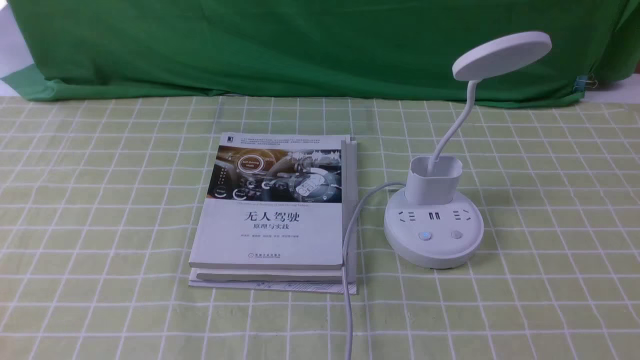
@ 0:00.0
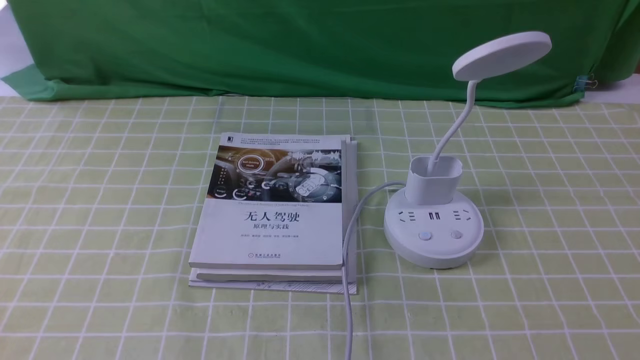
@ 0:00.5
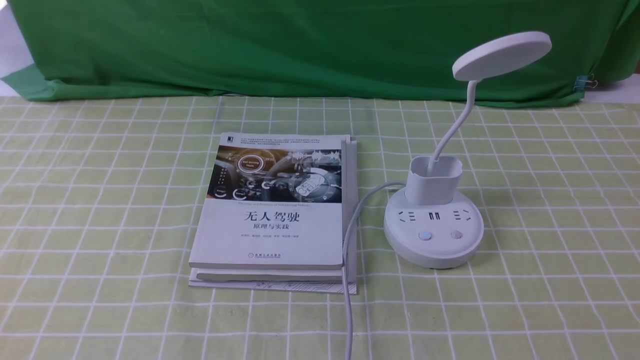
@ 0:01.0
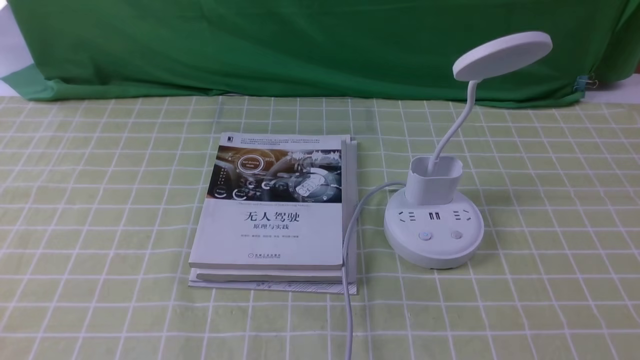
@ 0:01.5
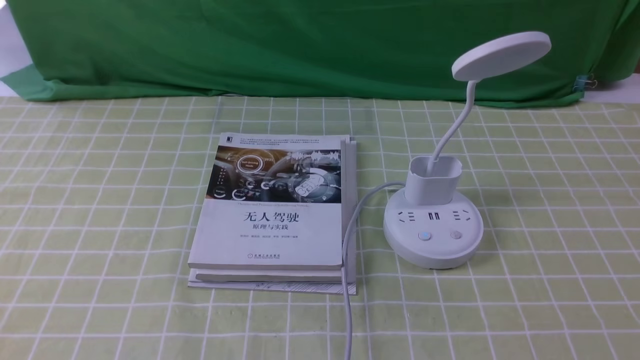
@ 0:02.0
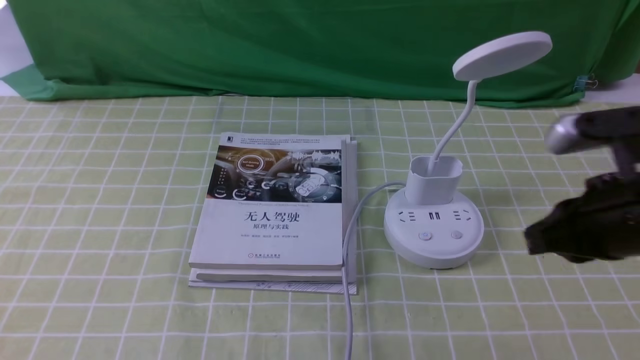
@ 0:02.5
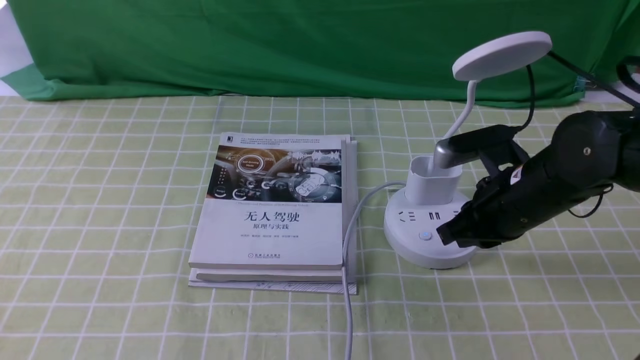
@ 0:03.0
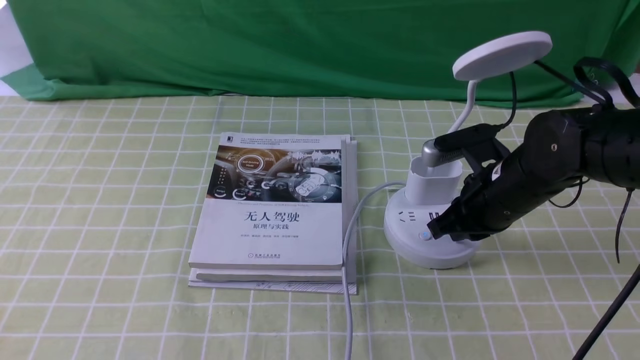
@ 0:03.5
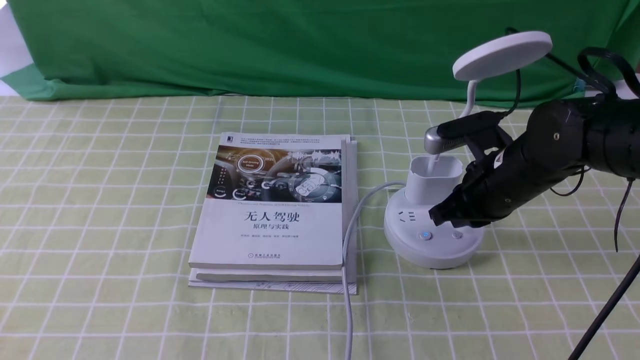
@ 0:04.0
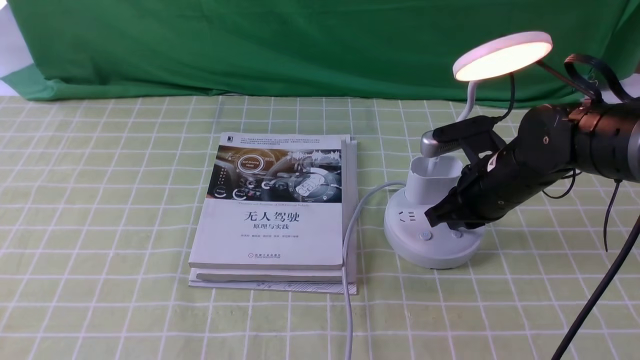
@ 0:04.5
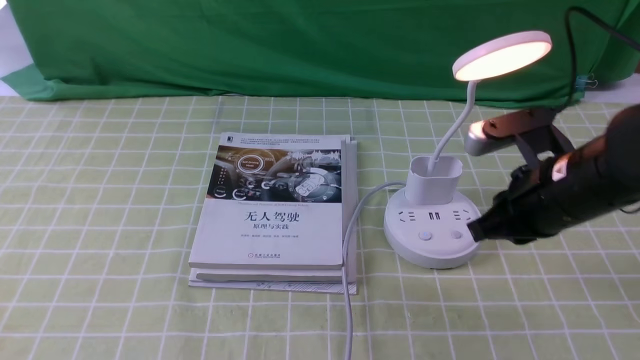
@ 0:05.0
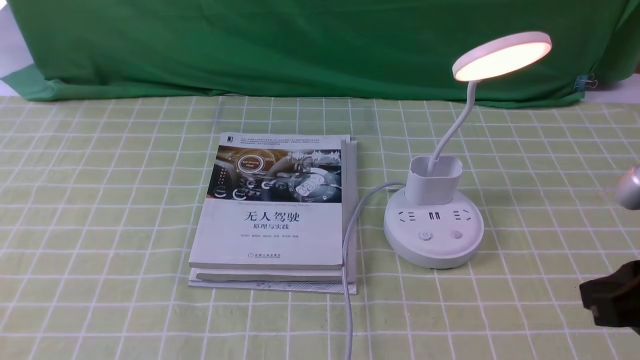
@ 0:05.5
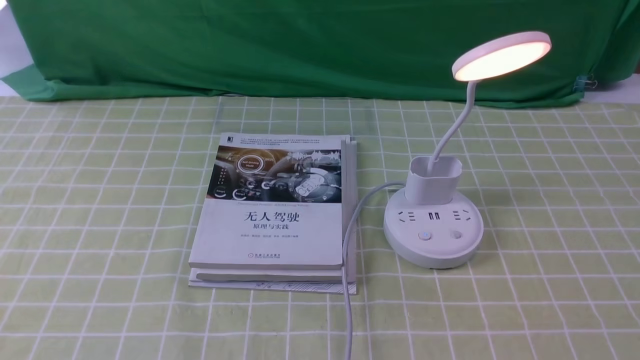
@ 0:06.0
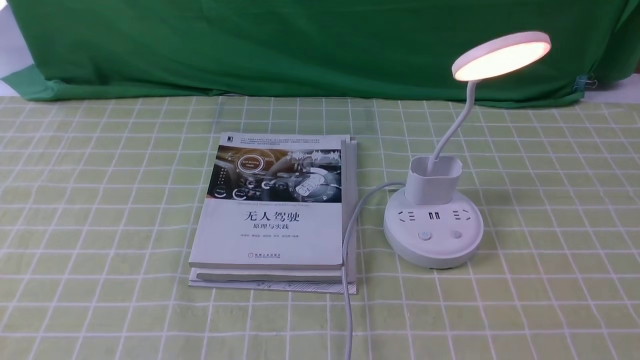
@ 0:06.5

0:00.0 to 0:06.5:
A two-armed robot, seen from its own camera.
Step, 0:00.0 to 0:04.5: use the right arm to press the button switch on the lamp holder.
0:02.0 to 0:04.5: The right gripper moves forward and to the left, roughly 30 cm, and closes.
0:04.5 to 0:06.5: The right gripper goes approximately 35 cm backward and to the right.

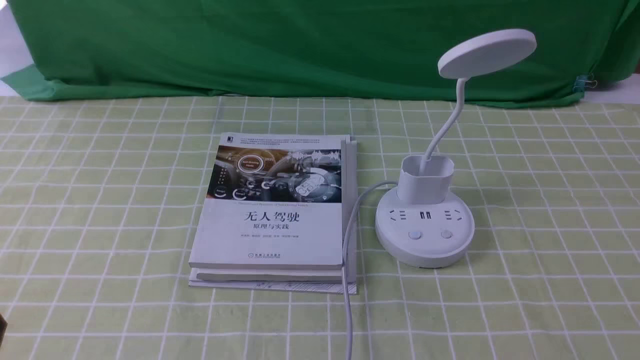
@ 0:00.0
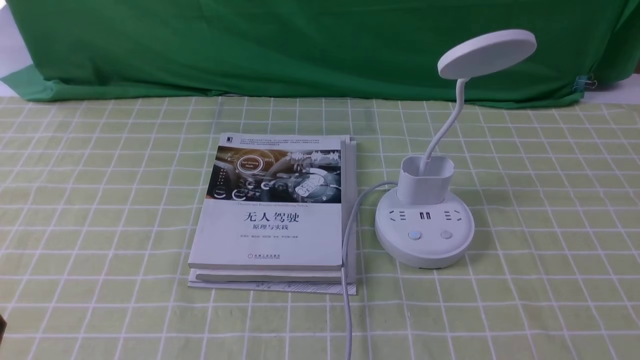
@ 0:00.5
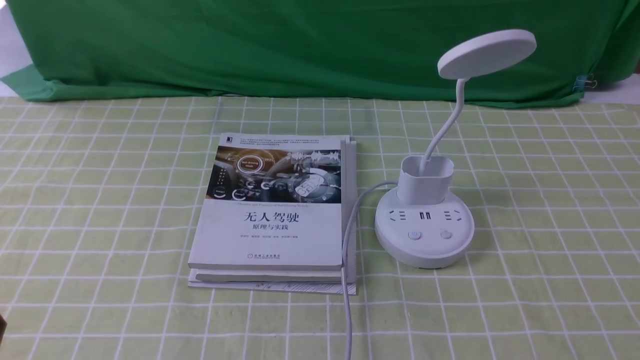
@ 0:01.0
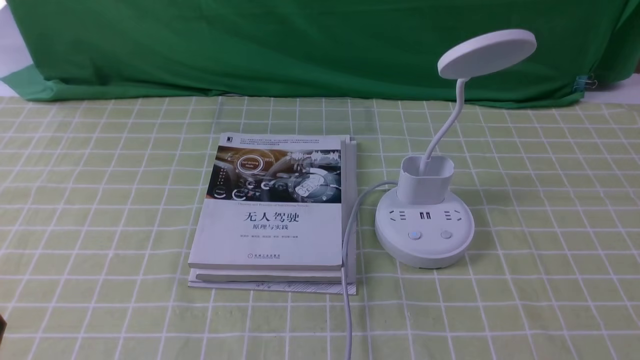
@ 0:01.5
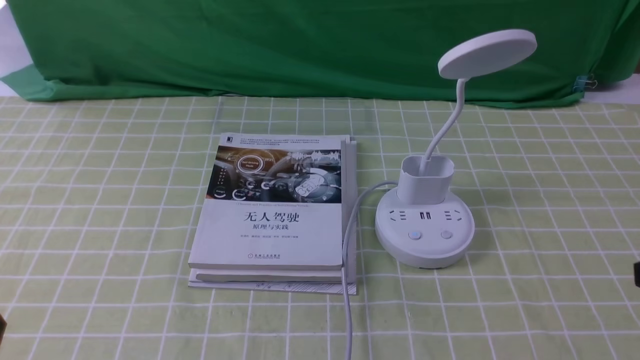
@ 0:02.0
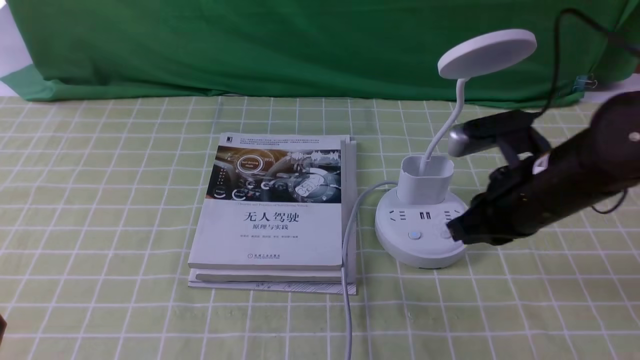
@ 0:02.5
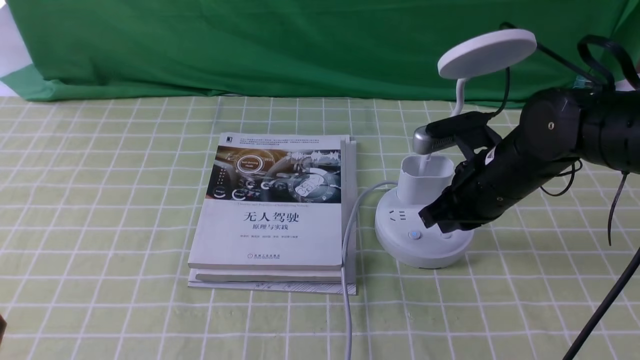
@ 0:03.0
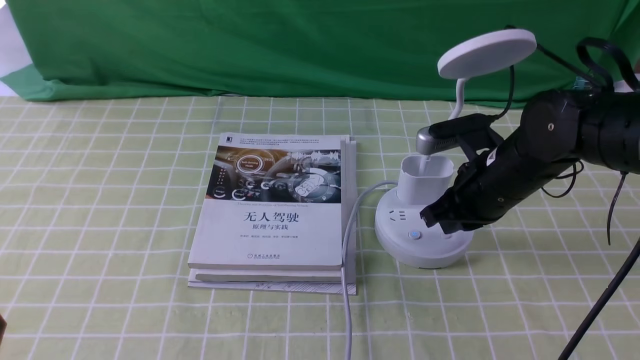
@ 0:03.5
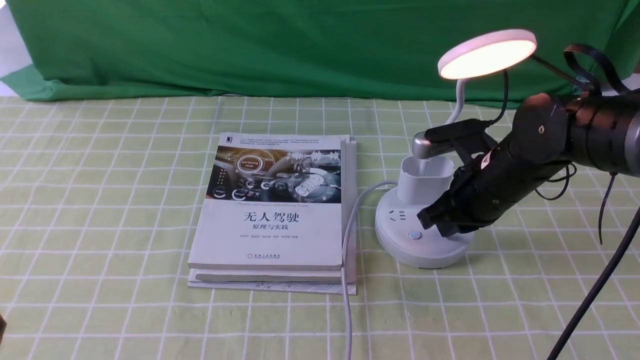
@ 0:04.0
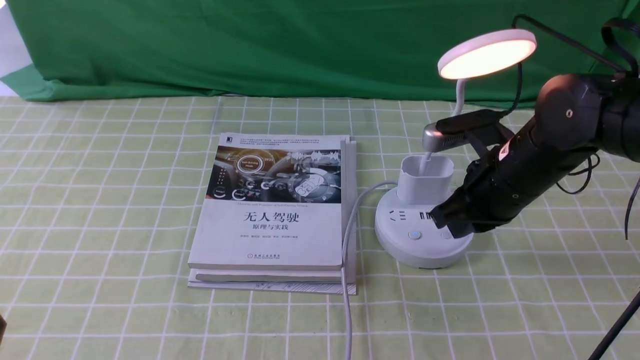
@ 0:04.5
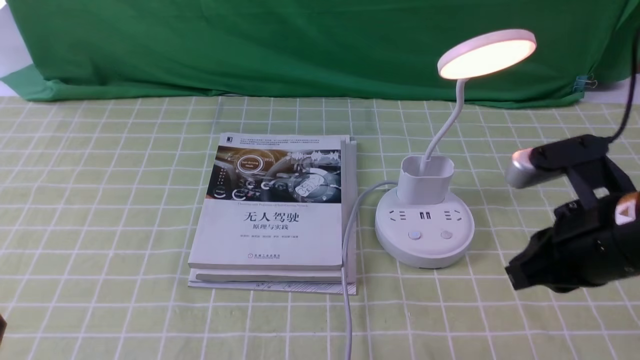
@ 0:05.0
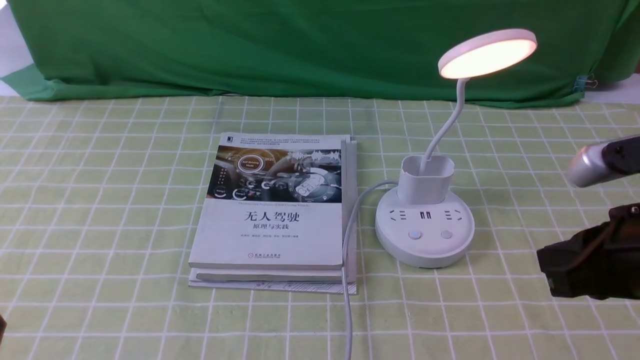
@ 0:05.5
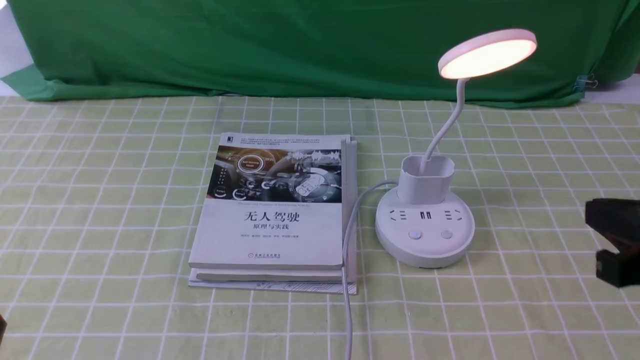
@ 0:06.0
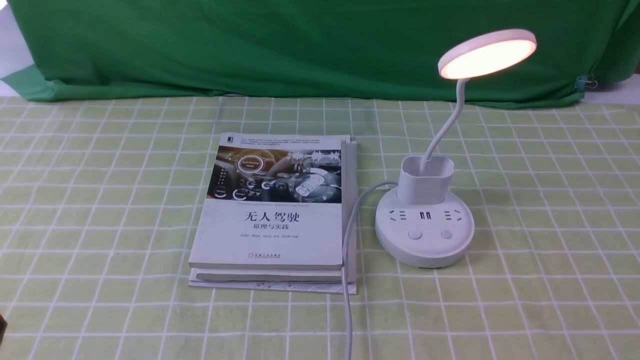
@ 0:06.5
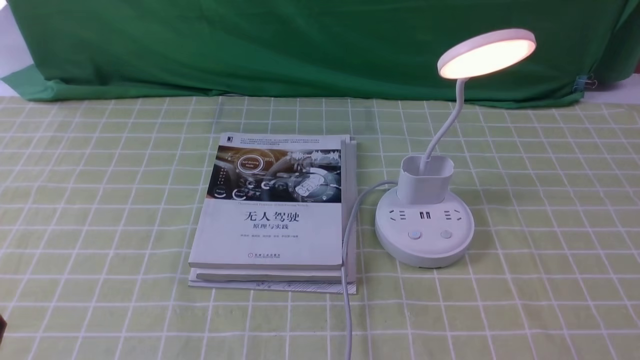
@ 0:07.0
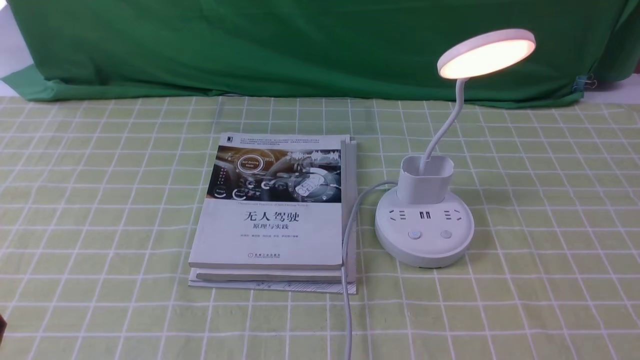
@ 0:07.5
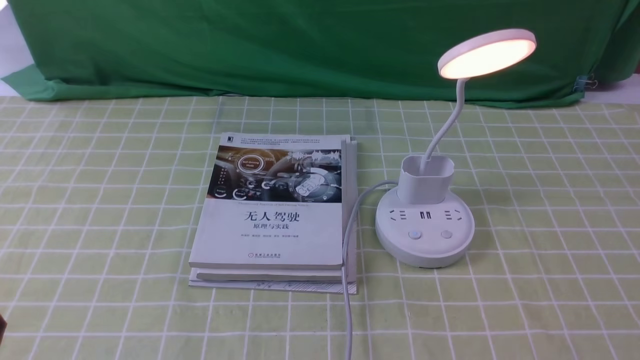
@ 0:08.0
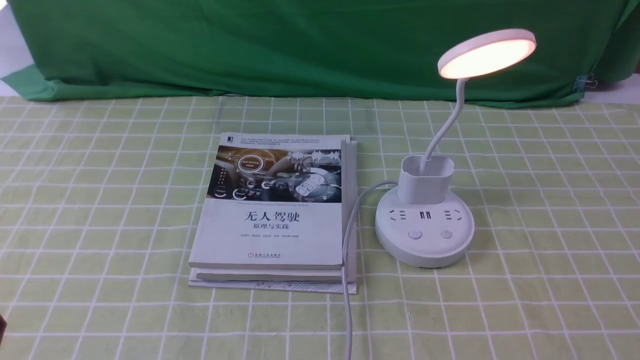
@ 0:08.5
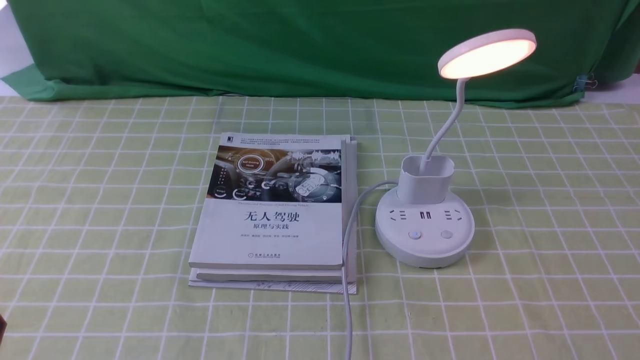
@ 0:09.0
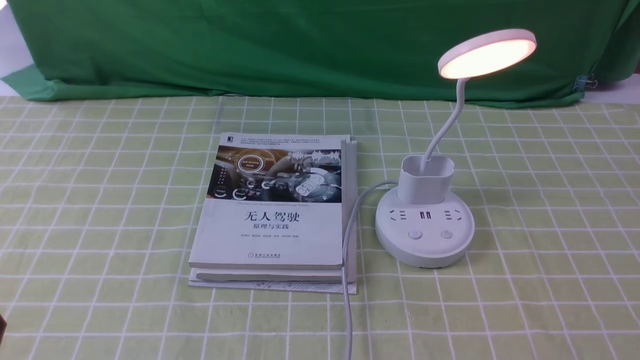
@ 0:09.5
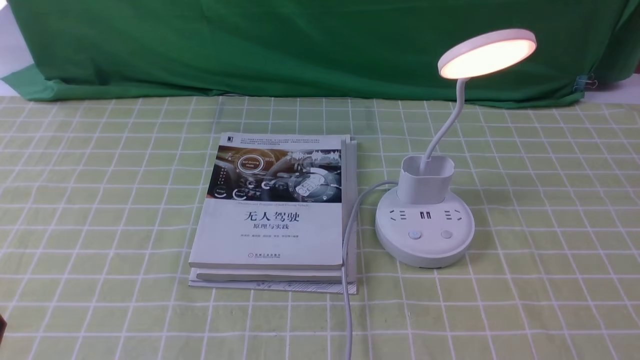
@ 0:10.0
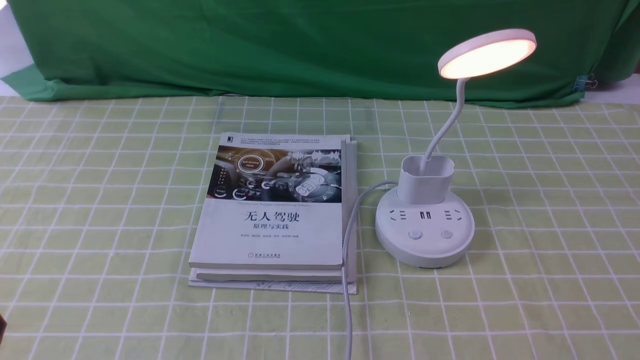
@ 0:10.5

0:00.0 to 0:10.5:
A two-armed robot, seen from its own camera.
Step, 0:00.0 to 0:04.5: use the right arm to press the button switch on the lamp holder.
0:02.0 to 0:04.0: The right gripper shifts about 25 cm forward, to the left and downward.
0:04.0 to 0:06.5: The right gripper travels backward and to the right by roughly 30 cm.
